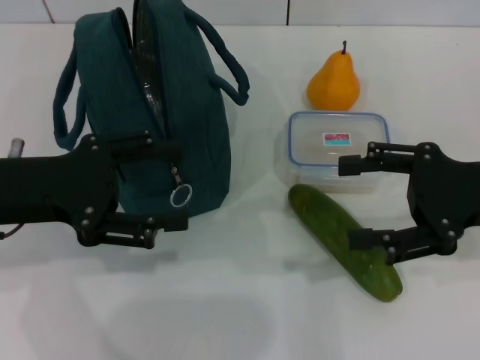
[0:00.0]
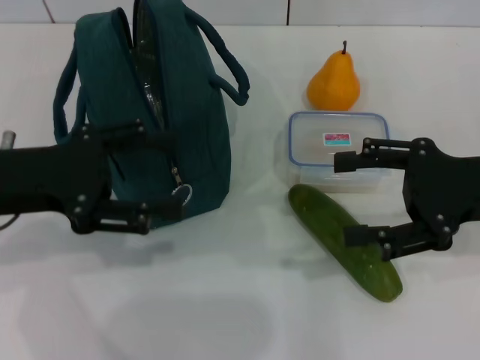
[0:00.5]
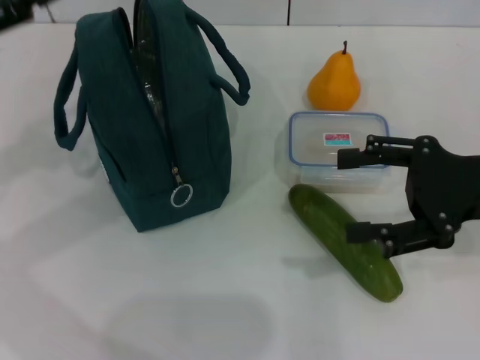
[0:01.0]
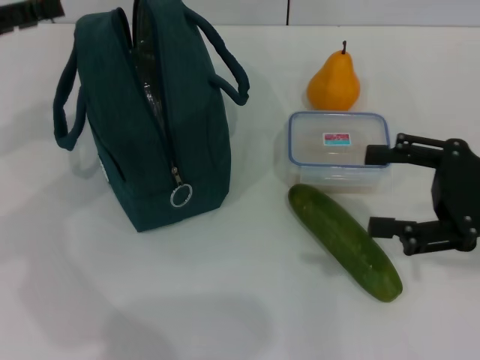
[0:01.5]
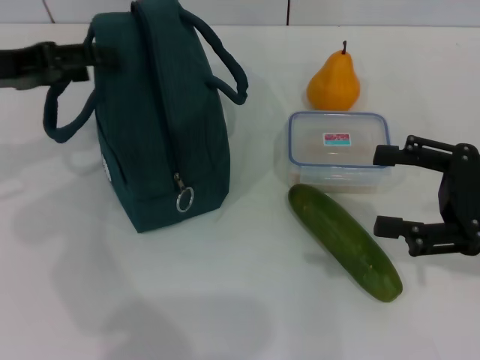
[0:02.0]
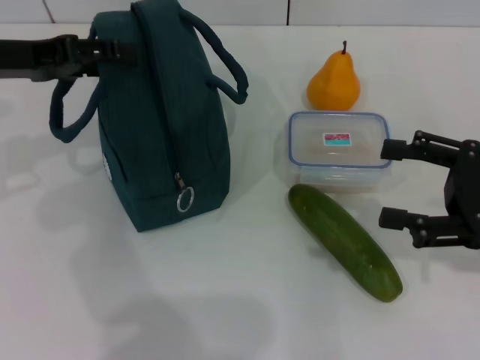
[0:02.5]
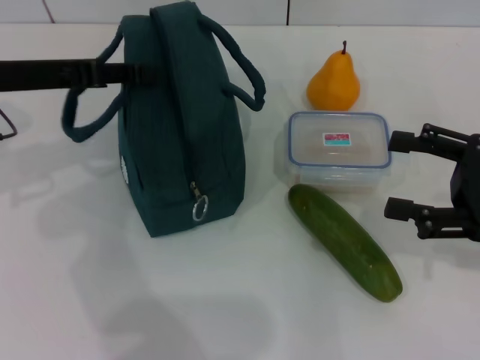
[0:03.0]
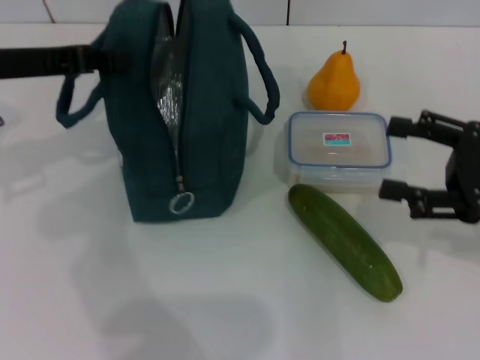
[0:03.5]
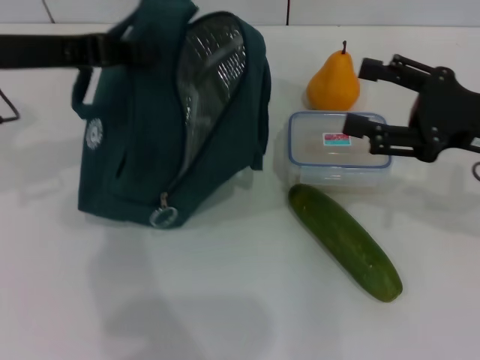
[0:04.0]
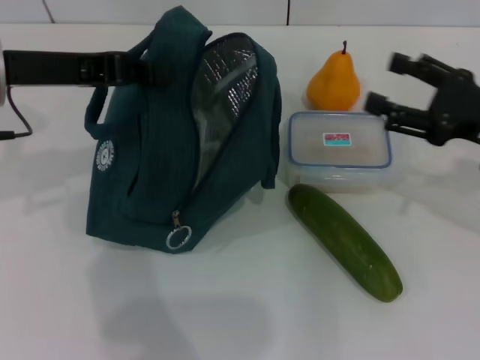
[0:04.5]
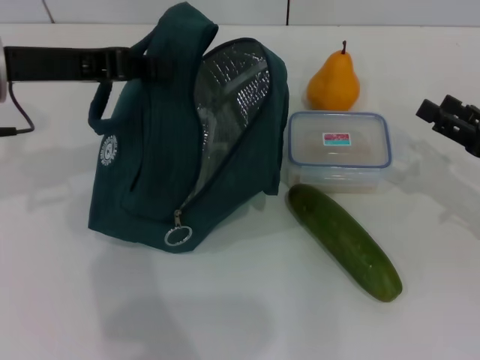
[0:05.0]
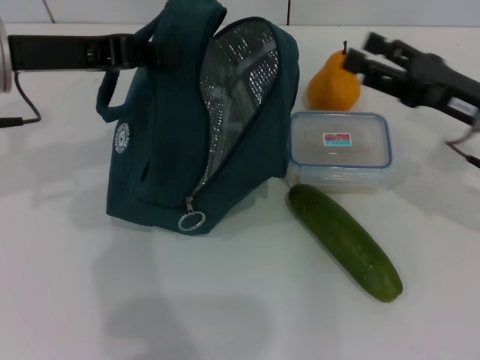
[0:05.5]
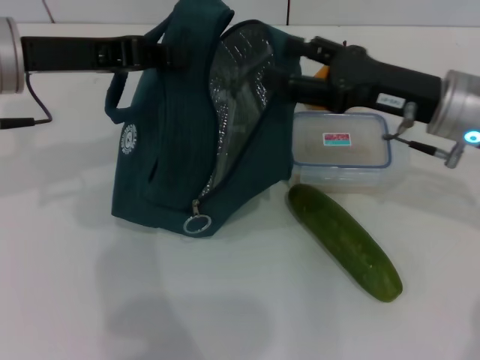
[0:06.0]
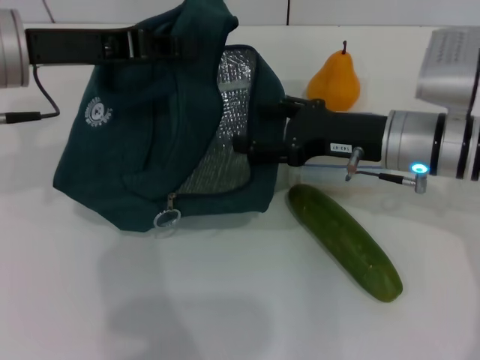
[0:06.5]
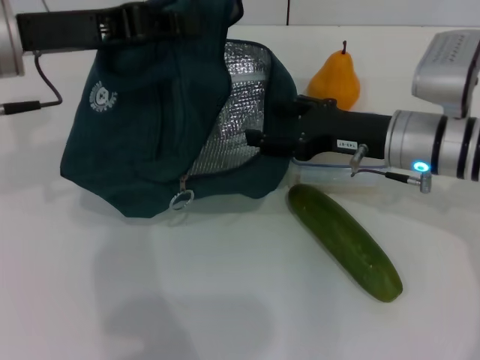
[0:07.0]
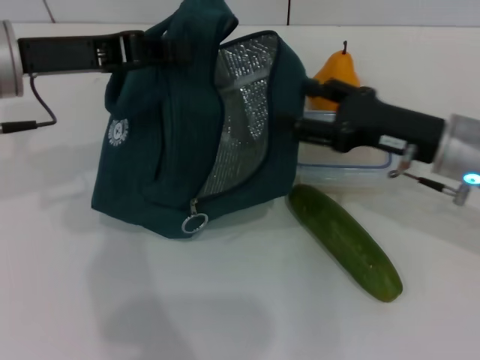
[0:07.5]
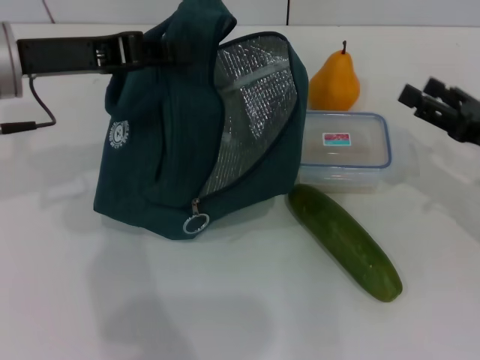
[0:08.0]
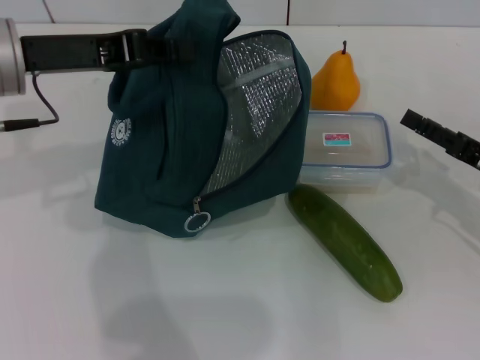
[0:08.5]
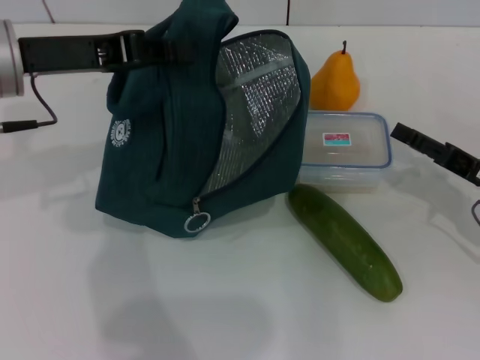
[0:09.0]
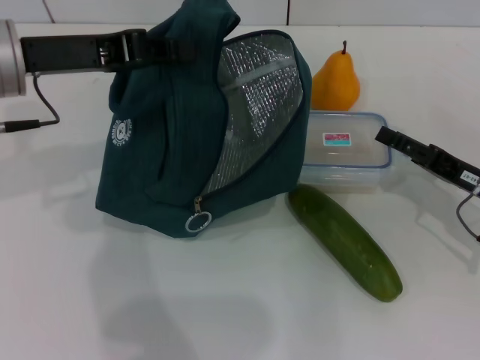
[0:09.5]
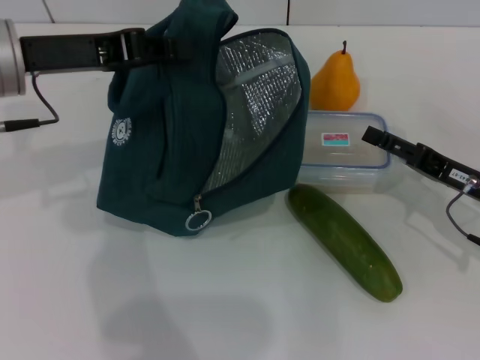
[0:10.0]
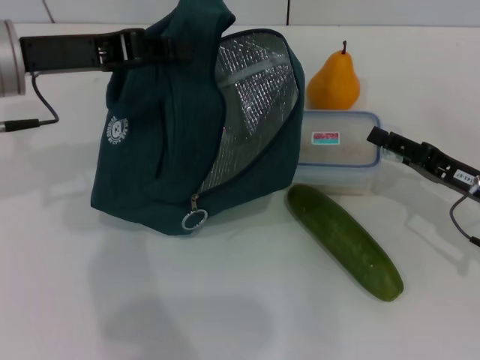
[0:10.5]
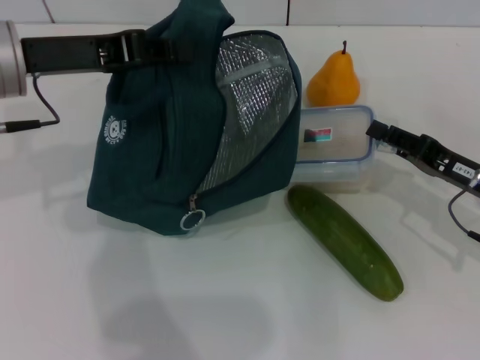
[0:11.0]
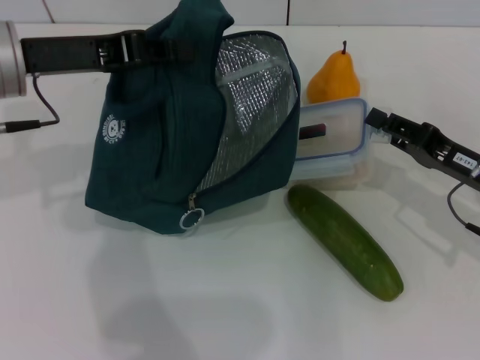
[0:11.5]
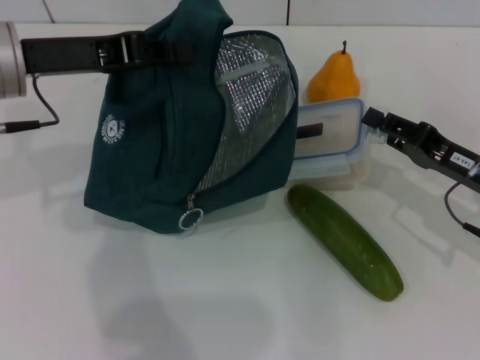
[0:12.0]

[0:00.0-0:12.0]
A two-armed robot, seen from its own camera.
Step, 0.0 to 3.5 s: Hold the lunch bag with your left hand.
0.0 to 2.0 s: The left gripper shifts about 10 cm forward.
2.0 to 4.0 s: The left gripper shifts by approximately 5 cm, and closes its fingers. The right gripper changes place by about 5 cm.
4.0 to 6.0 s: The right gripper travels to the left by approximately 5 cm.
6.0 to 8.0 s: The right gripper heads to the right and downward, covering some 10 cm.
10.0 to 12.0 s: The right gripper closes up.

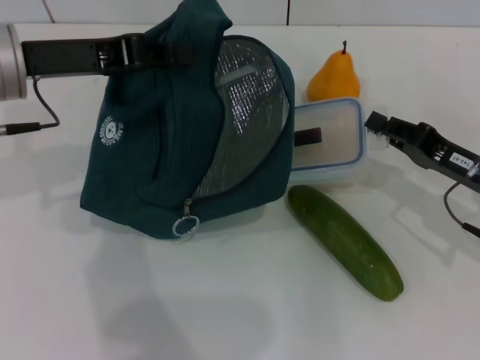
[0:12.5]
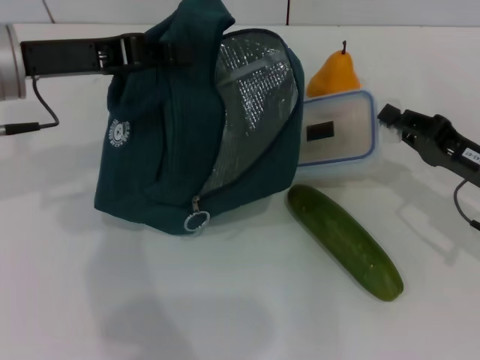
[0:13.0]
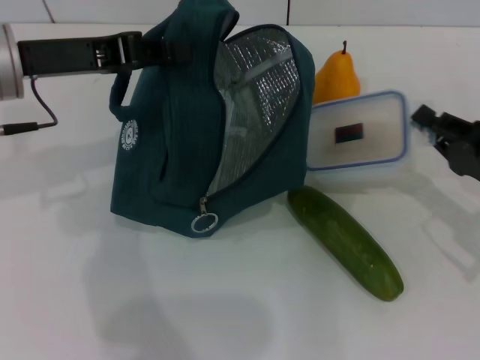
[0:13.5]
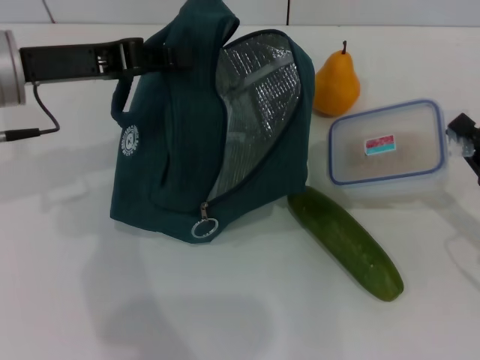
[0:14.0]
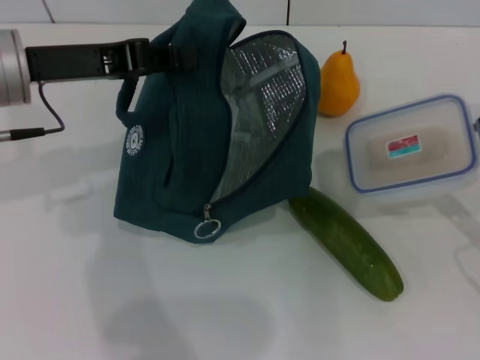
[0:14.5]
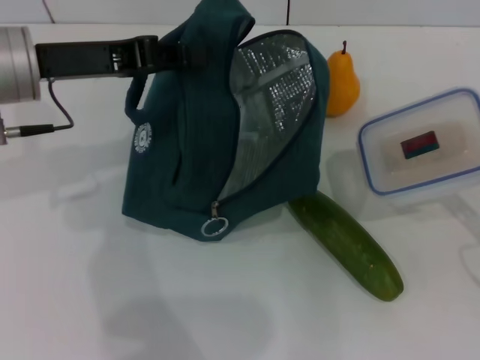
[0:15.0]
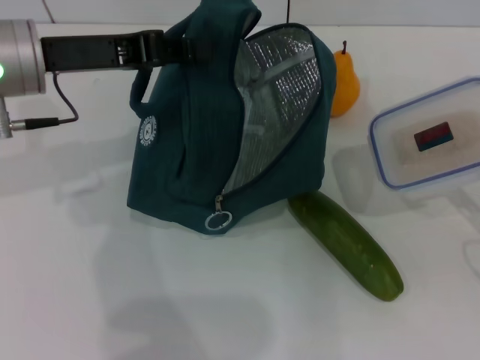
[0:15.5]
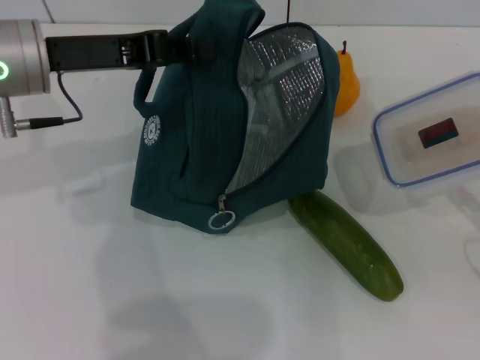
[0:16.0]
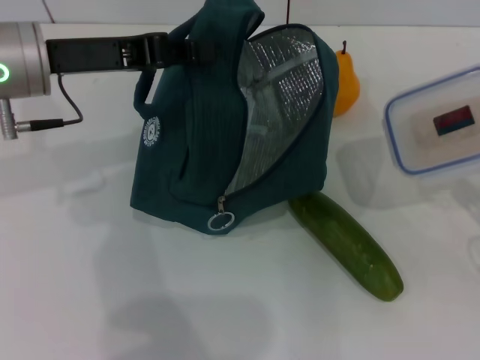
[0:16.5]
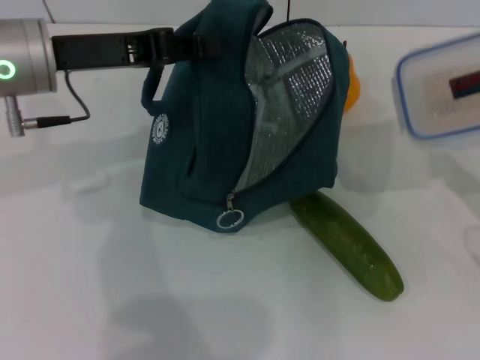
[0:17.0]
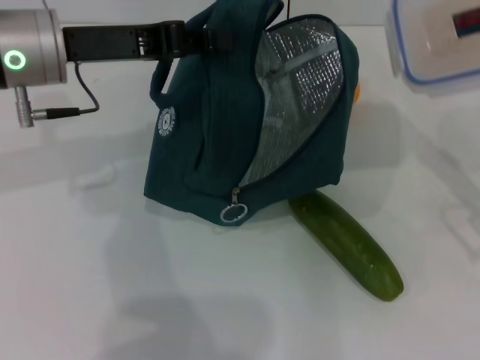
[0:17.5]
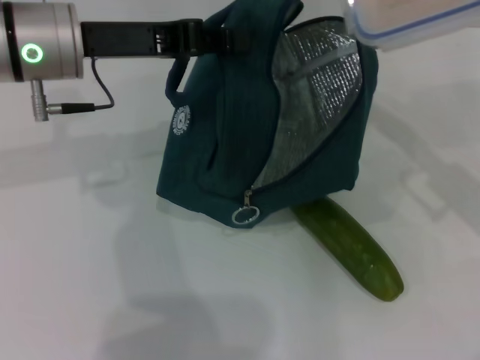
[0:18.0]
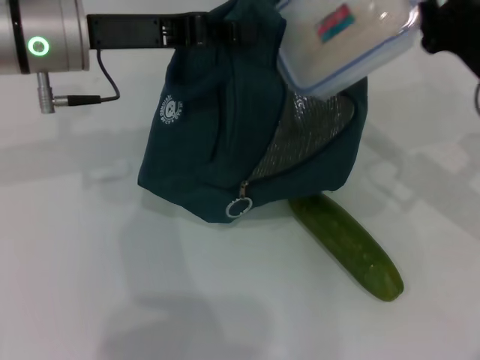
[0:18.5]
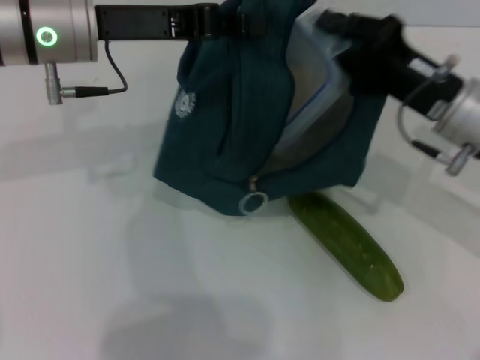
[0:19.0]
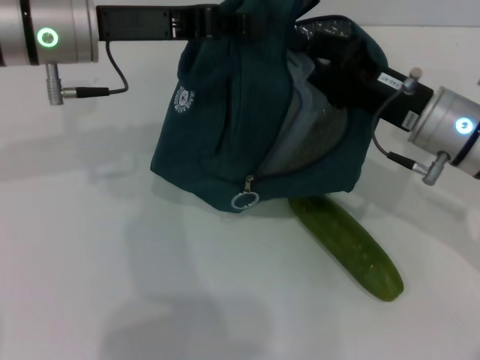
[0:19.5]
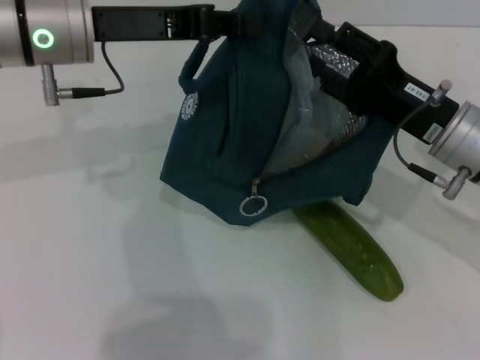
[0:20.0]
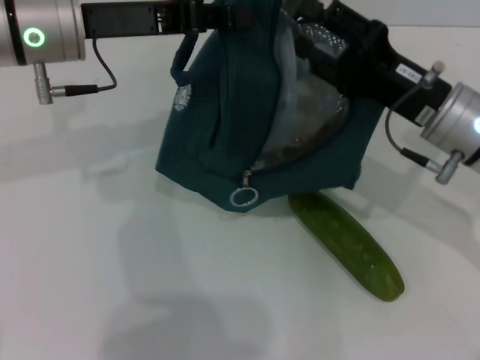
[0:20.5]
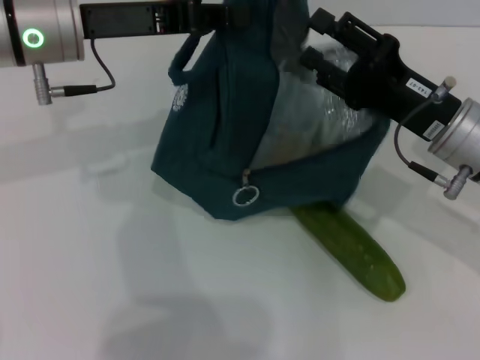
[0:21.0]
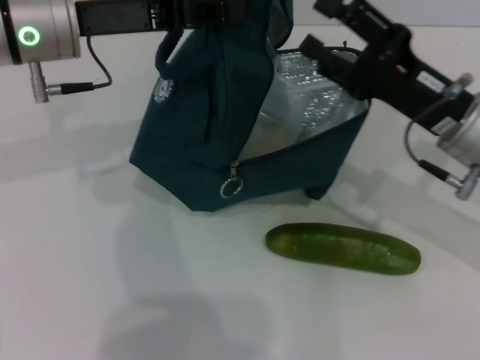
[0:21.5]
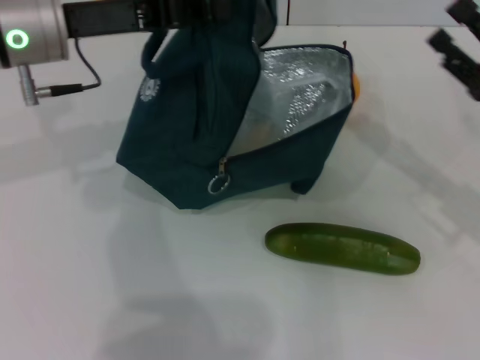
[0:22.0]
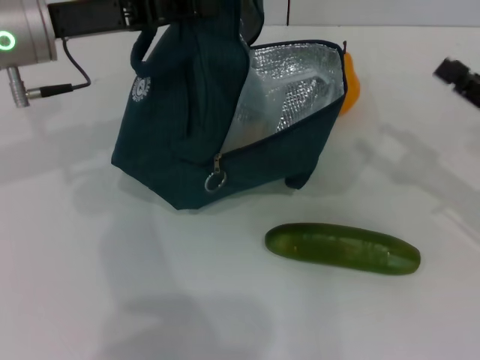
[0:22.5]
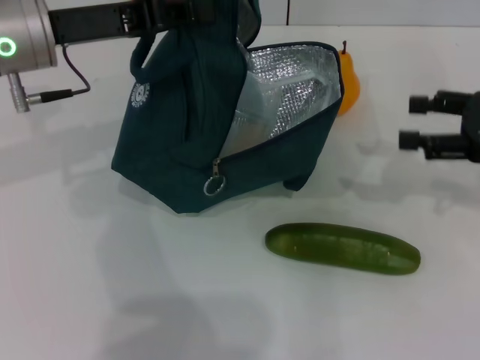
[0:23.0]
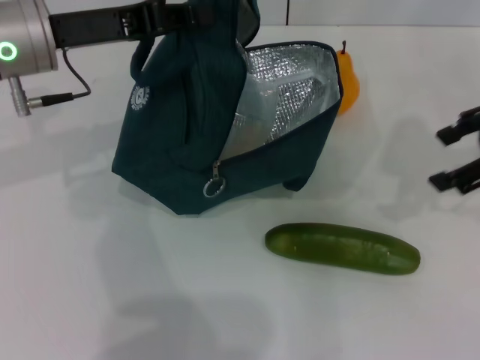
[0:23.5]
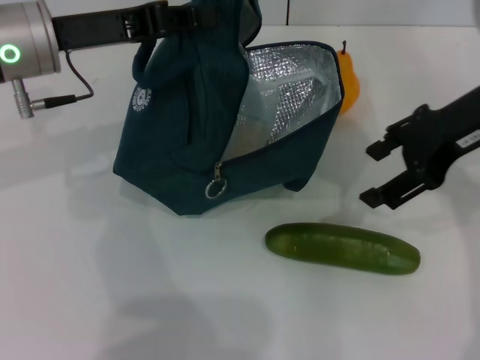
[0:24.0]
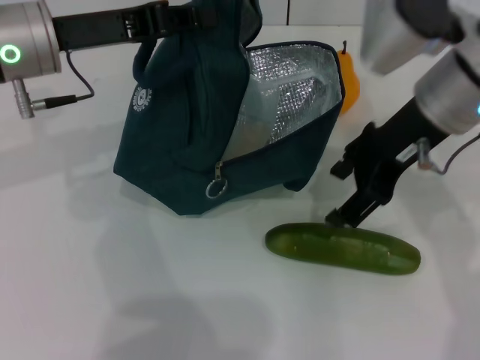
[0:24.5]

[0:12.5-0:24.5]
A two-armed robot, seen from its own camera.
Step, 13.0 to 21.5 s: Place the lunch box into the lunch bag with your right hand.
12.5 to 14.5 s: The right gripper shifts about 10 cm backward and to the right.
14.5 to 16.5 s: The grippers stay close to where they were, moving slightly.
16.5 to 18.5 s: The right gripper heads forward, to the left and upward, covering about 15 cm.
18.5 to 20.5 s: The right gripper moves to the left, roughly 5 cm, and opens up.
20.5 to 22.5 s: The right gripper moves to the right, approximately 15 cm.
22.5 to 24.5 s: The right gripper heads to the left and upward, covering some 20 cm.

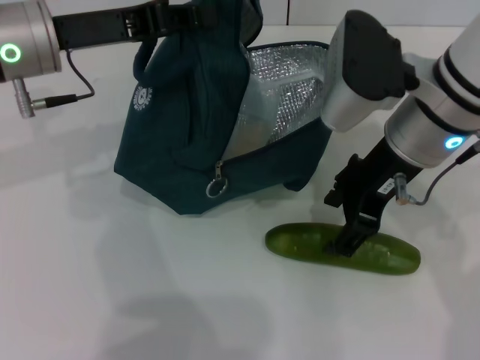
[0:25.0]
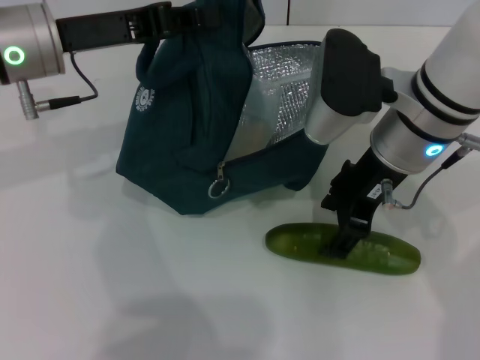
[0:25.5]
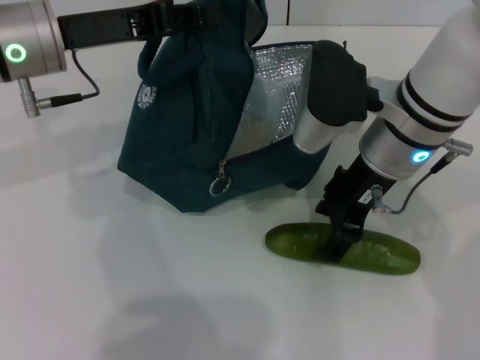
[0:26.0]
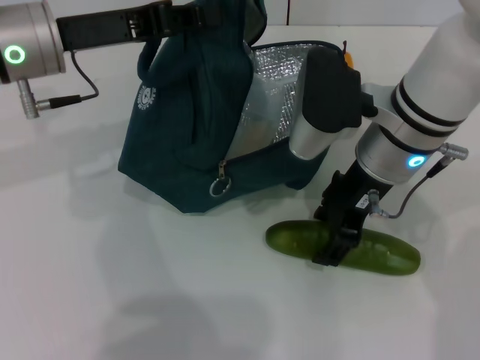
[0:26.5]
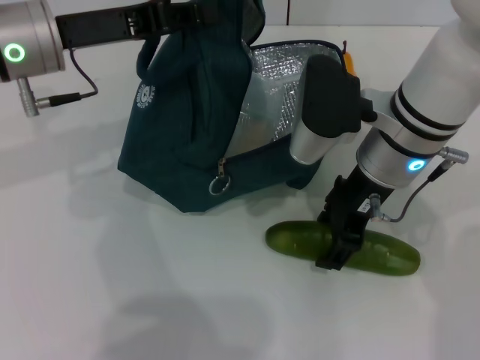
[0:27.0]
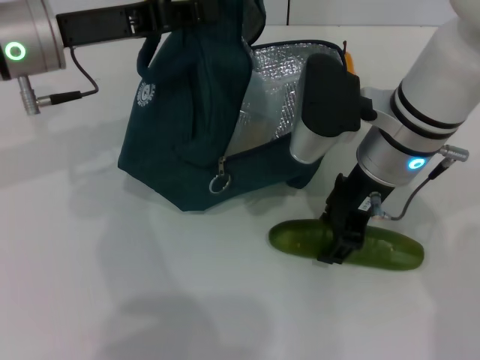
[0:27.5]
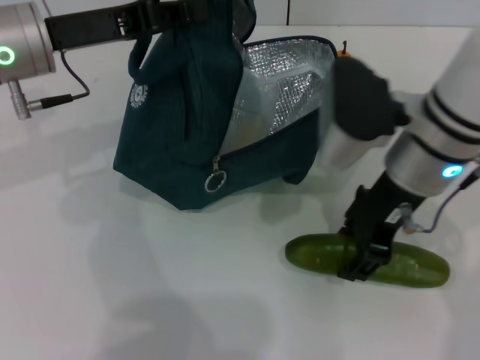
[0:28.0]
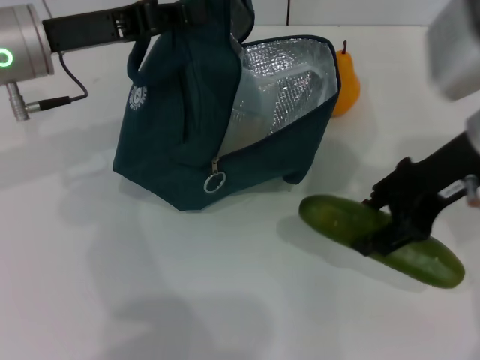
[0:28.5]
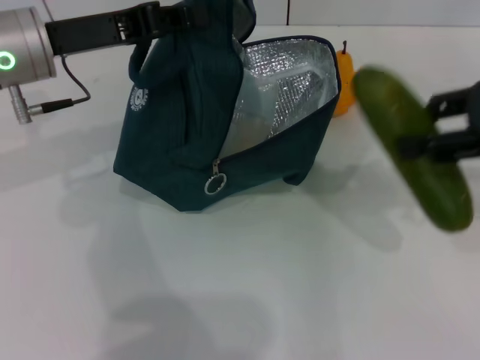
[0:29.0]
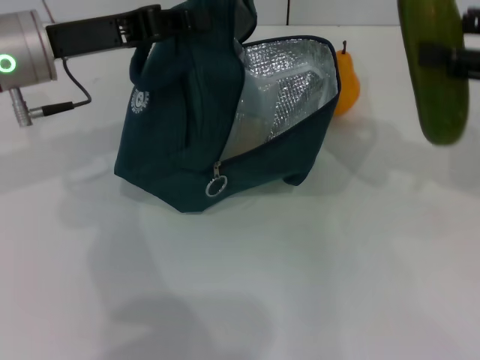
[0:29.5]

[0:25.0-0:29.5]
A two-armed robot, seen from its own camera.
Step, 25.0 to 27.5 s: Pick up the cucumber with your right hand.
25.0 to 27.0 s: The grippers make only small movements.
27.0 to 29.5 s: The right gripper is displaced to the right by roughly 20 cm.
